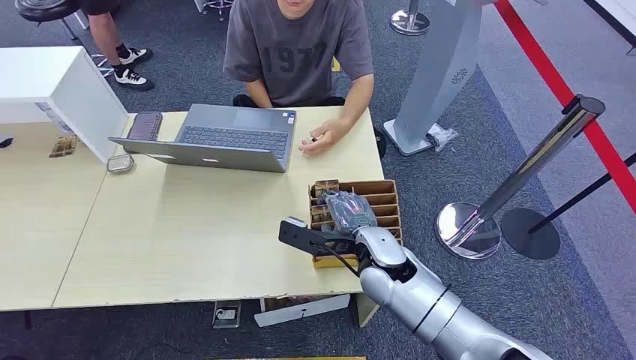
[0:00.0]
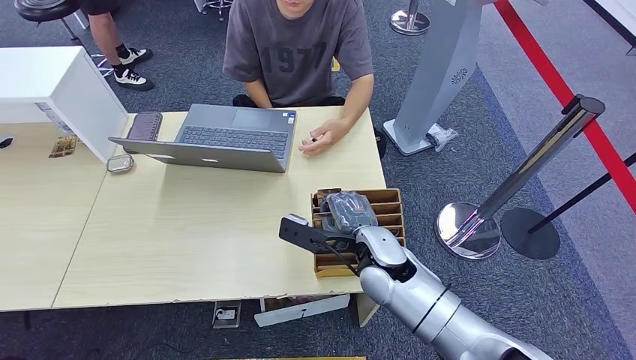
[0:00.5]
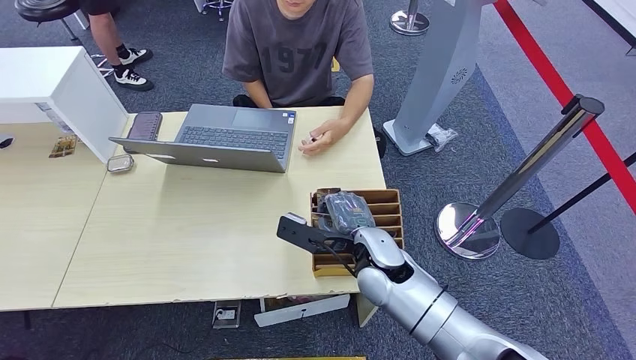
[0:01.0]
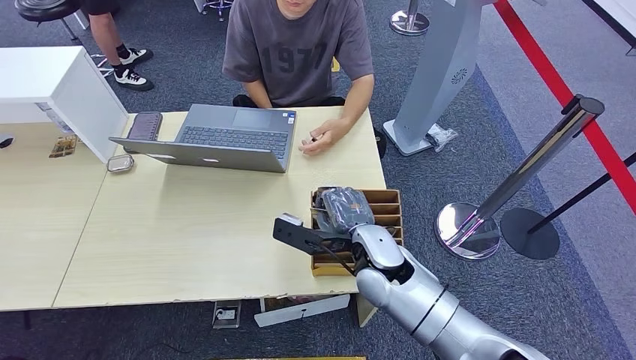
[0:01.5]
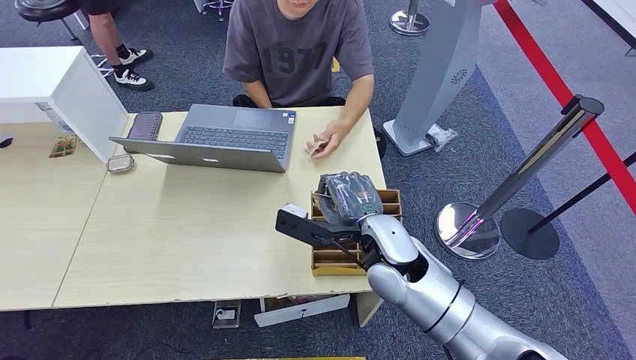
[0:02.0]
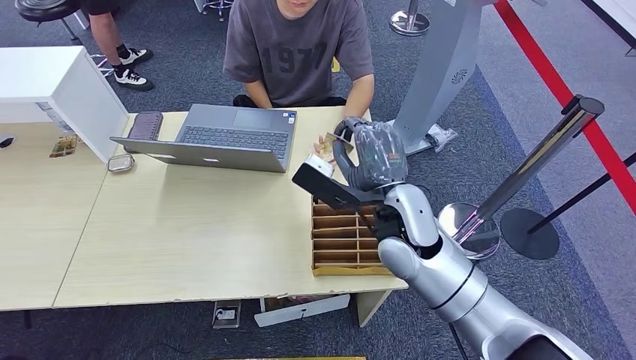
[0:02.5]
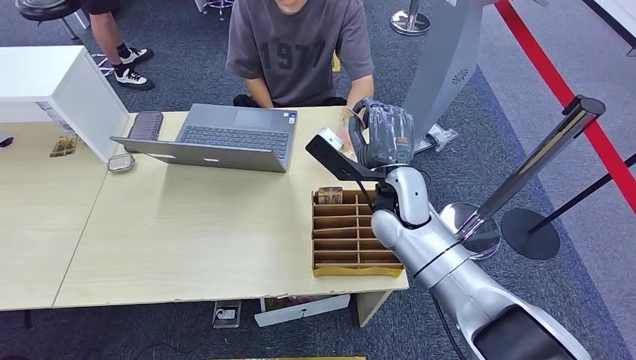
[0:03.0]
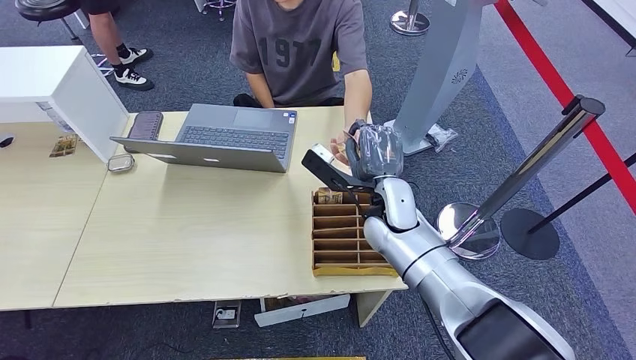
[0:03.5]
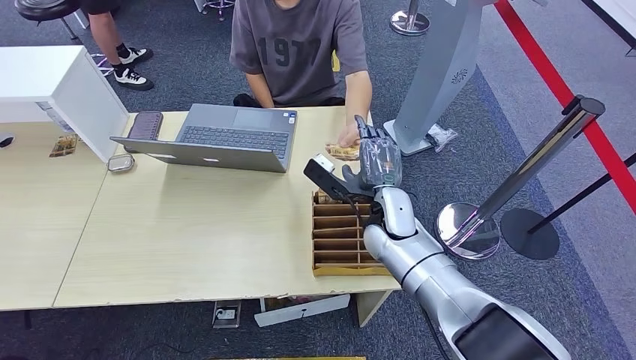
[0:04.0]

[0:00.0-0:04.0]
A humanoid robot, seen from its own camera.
Step, 0:00.0 to 0:02.0: Pick up the key card from the card box.
Step, 0:03.5 to 0:04.0: Hand the key card to the target.
0:02.0 to 0:04.0: The right hand is displaced forward by roughly 10 cm.
